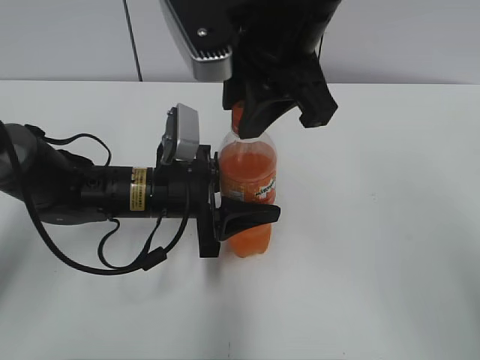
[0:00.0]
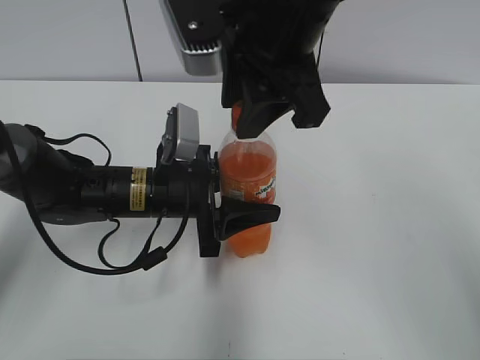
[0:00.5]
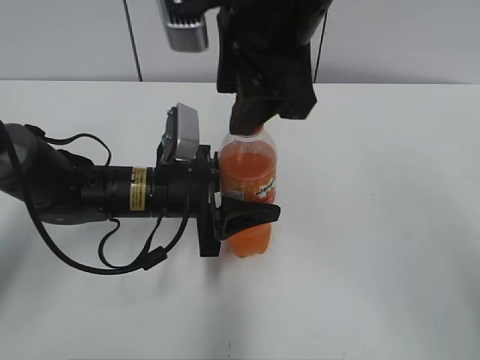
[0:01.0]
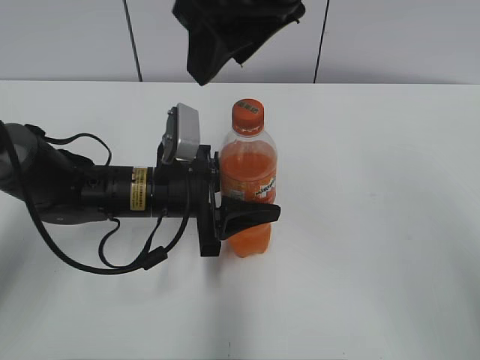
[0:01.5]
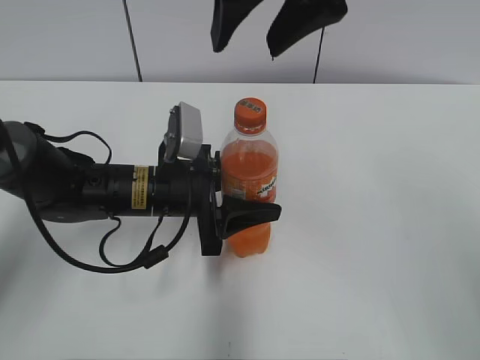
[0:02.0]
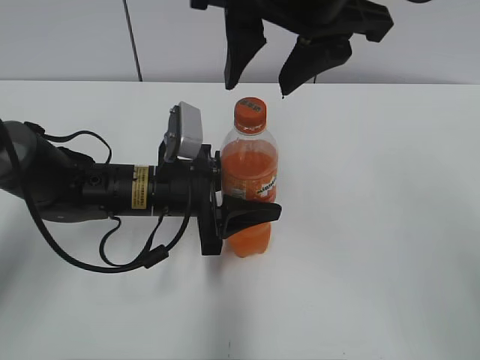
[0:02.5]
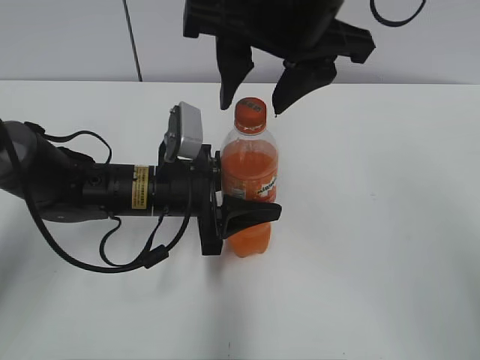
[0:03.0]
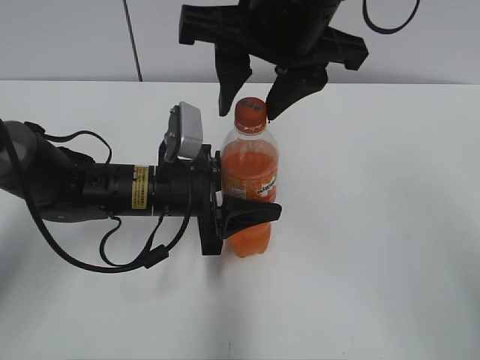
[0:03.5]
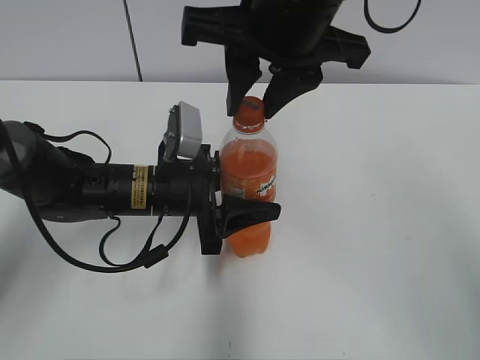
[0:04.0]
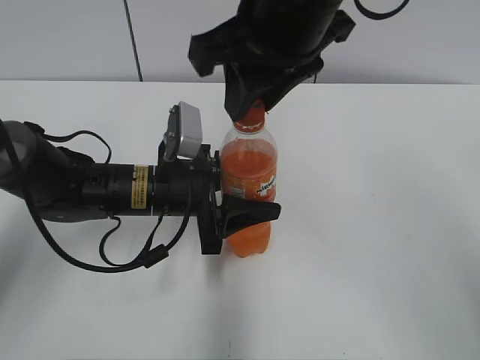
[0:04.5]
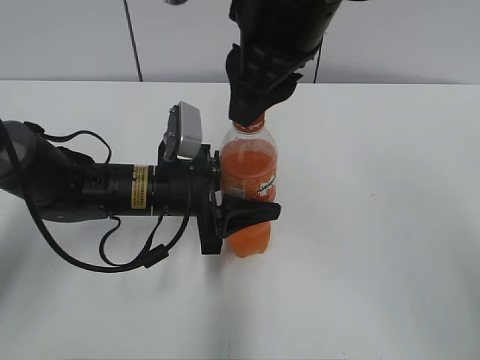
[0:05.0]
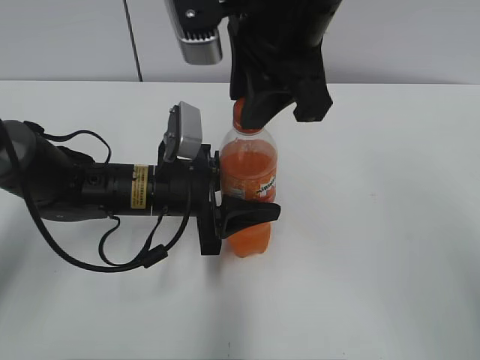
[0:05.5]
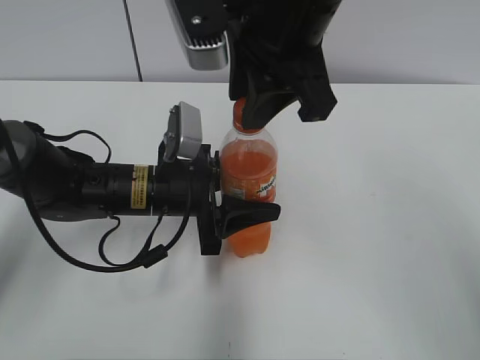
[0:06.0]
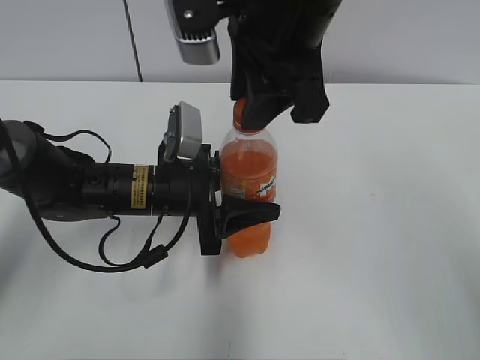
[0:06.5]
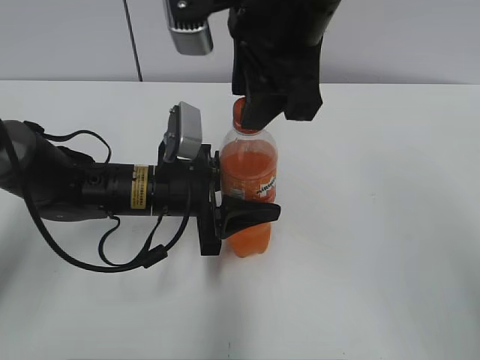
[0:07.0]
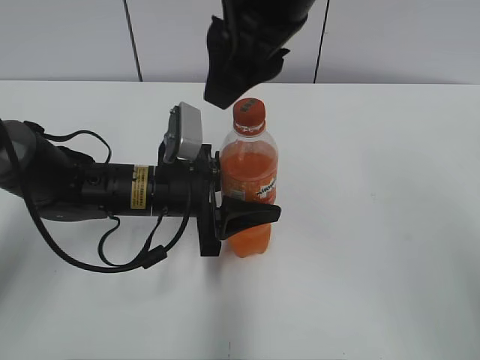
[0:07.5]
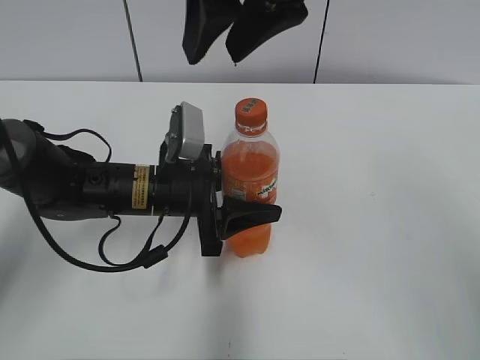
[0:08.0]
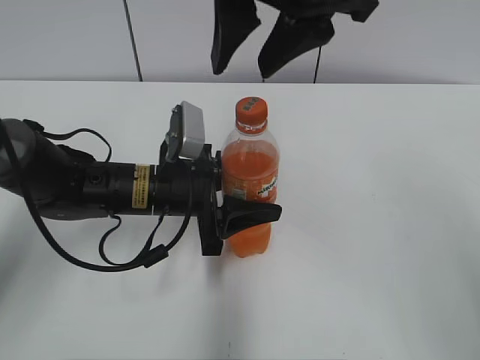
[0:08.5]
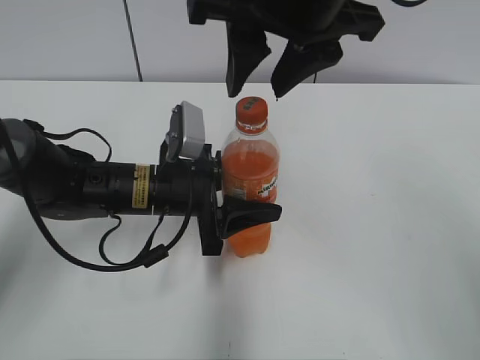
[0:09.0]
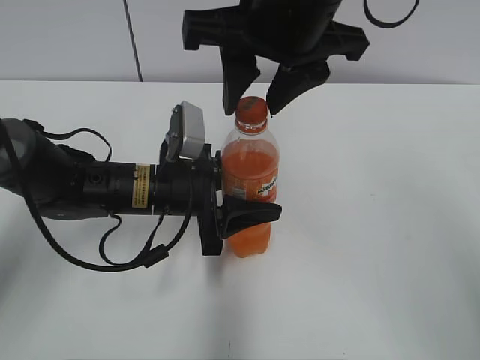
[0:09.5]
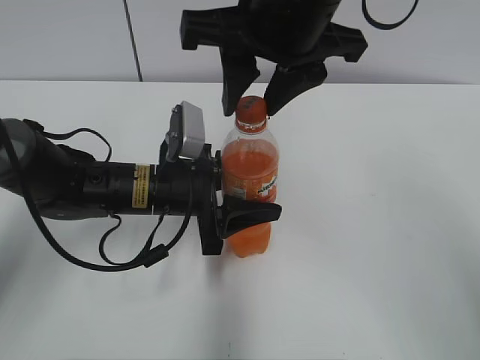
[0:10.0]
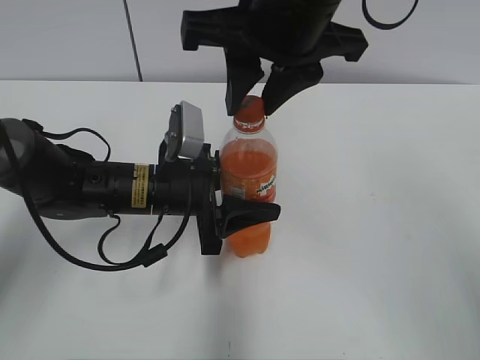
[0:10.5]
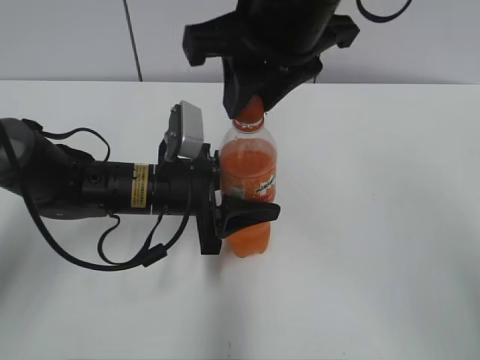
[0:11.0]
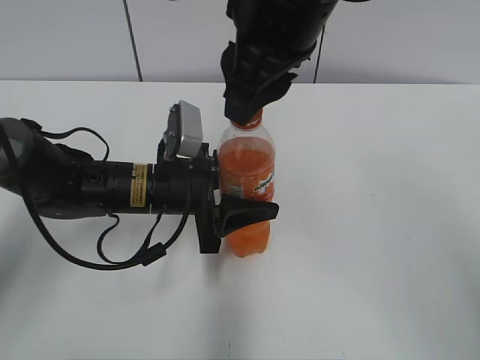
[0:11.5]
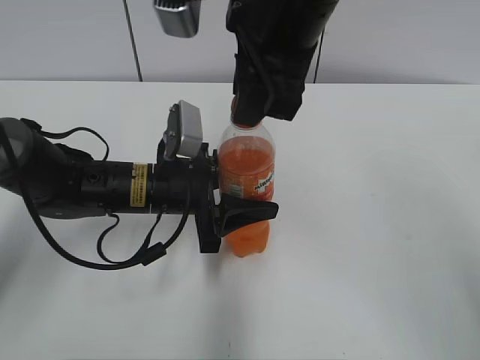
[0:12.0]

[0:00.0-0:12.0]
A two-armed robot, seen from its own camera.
0:00.0 to 0:02.0: The right gripper travels upward by some 5 cm, and opens up.
0:02.0 to 0:04.0: The right gripper shifts about 5 cm downward, and closes.
0:06.0 to 0:08.0: The right gripper opens.
0:08.0 to 0:10.0: There are only small adjustments of the grippers.
0:10.0 to 0:12.0: The right gripper closes its fingers.

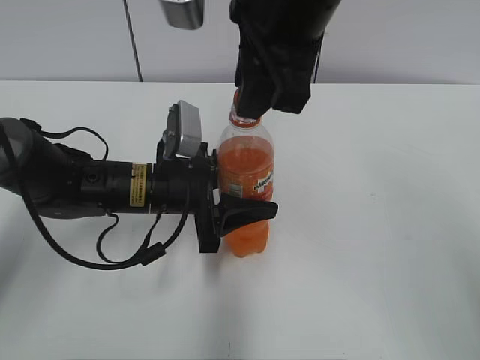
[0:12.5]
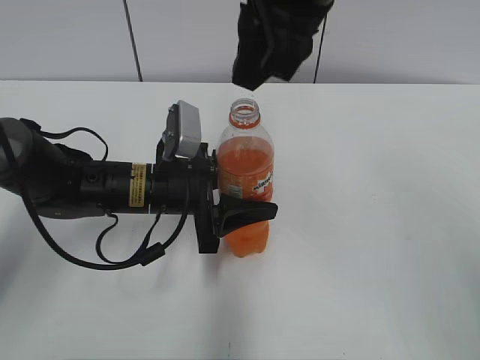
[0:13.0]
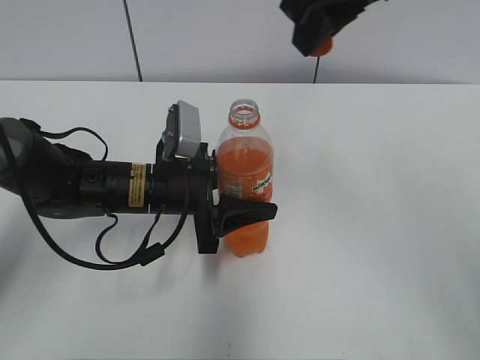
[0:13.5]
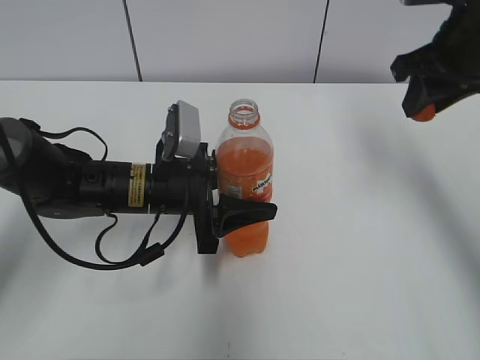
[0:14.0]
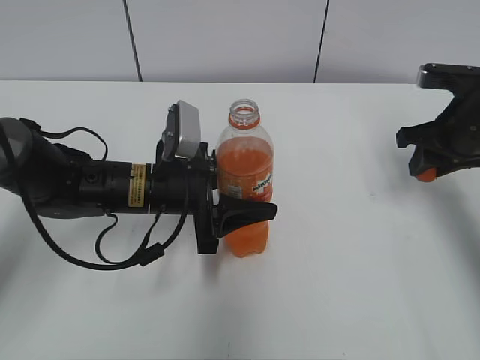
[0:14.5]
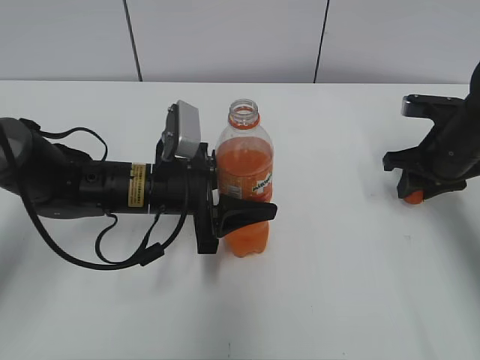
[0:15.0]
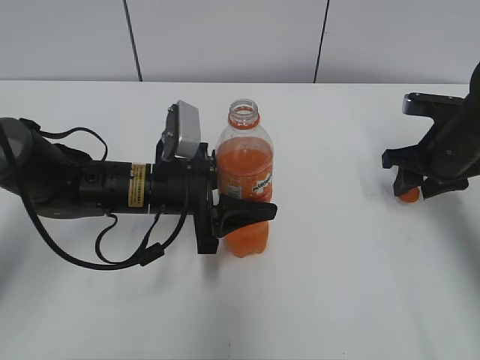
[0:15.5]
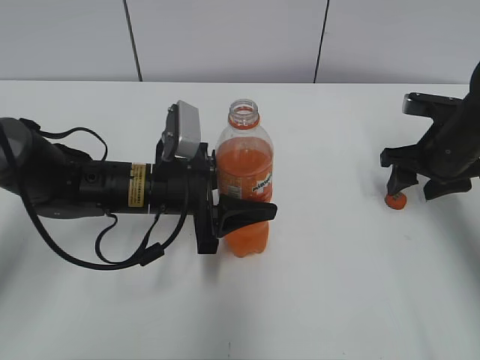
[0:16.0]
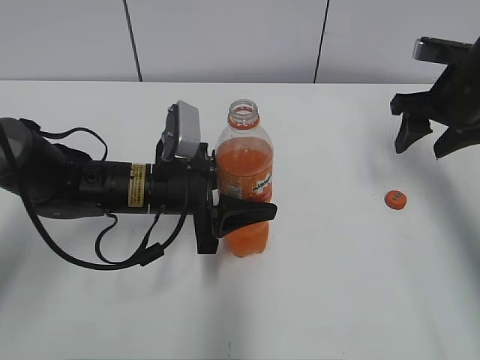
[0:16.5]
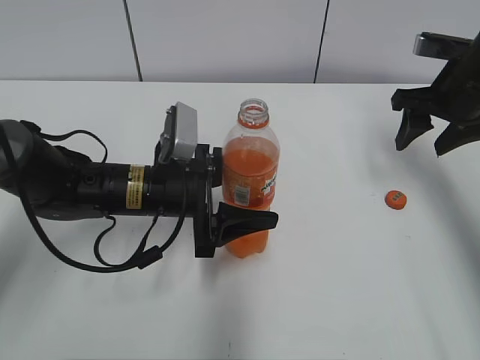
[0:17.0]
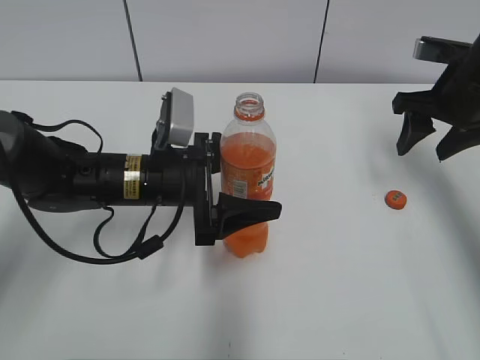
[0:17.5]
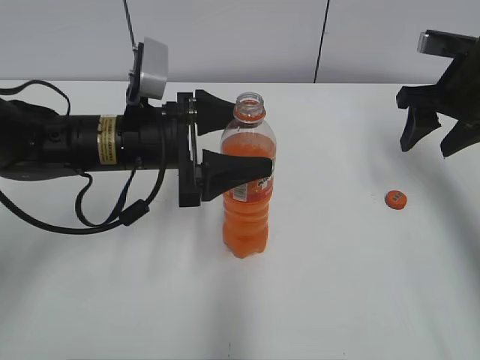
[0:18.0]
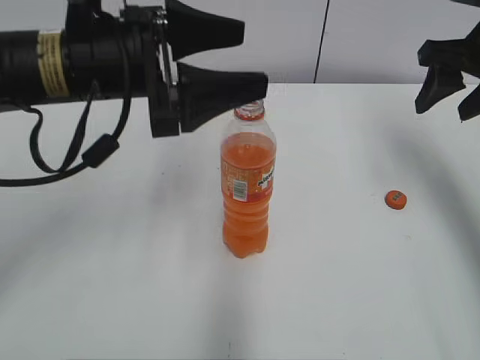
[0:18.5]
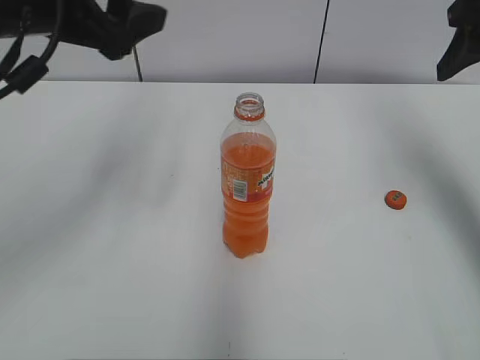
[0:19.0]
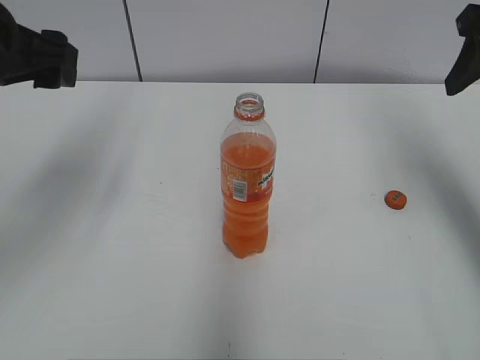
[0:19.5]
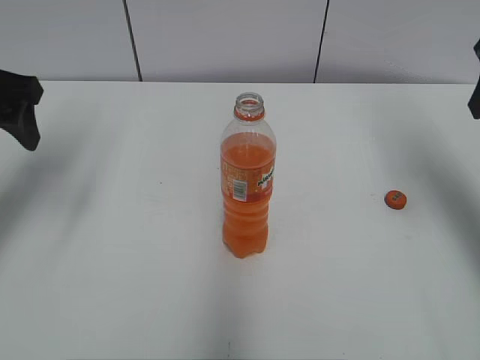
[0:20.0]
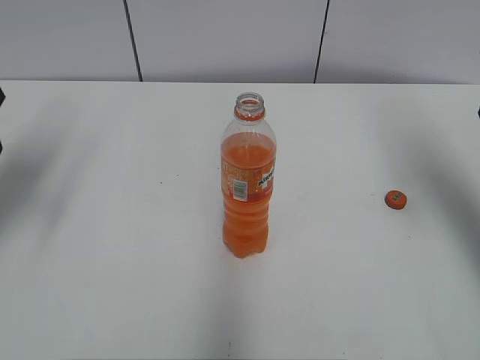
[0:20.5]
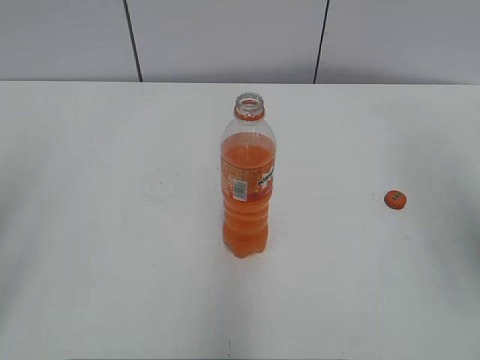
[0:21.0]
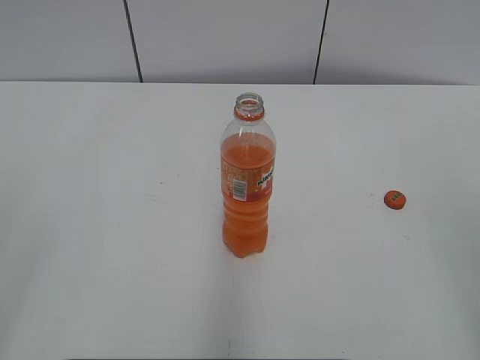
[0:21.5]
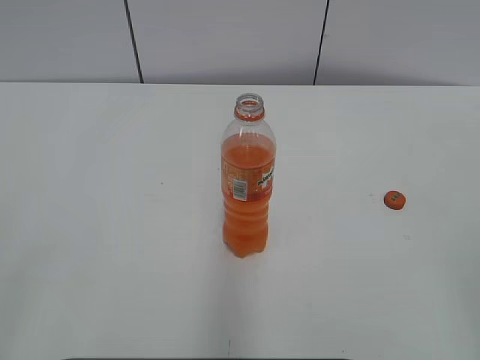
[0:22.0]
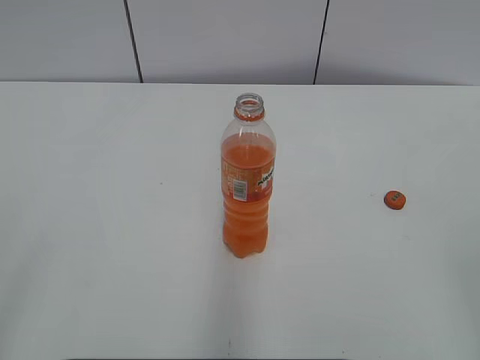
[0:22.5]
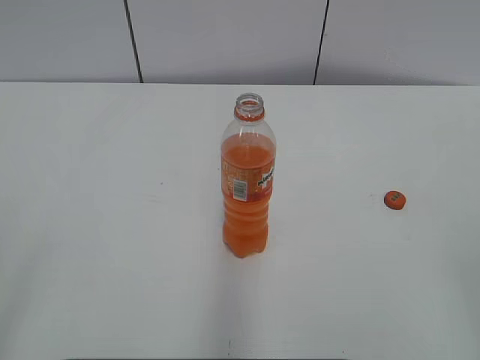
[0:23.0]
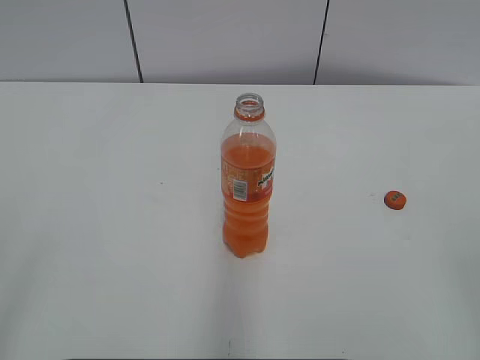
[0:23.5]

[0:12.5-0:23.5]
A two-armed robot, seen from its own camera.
Step, 0:13.0 to 0:15.5: Place the bottle cap on the right.
0:12.5 to 0:14.5: The right gripper moves to the right and downward, some 30 cm.
0:14.5 to 0:16.0: The right gripper opens its fingers.
0:16.0 to 0:18.0: Both grippers travel together upward, some 10 cm. The left gripper opens its fingers.
0:18.0 to 0:20.0: The right gripper shifts some 15 cm upward and backward. Meanwhile the left gripper is displaced to the left and upward by roughly 20 cm.
0:20.0 to 0:21.5: The grippers both shift backward by some 25 cm.
